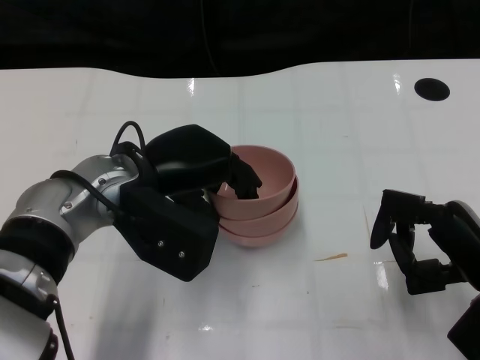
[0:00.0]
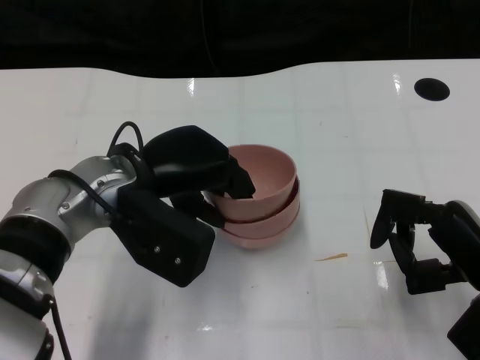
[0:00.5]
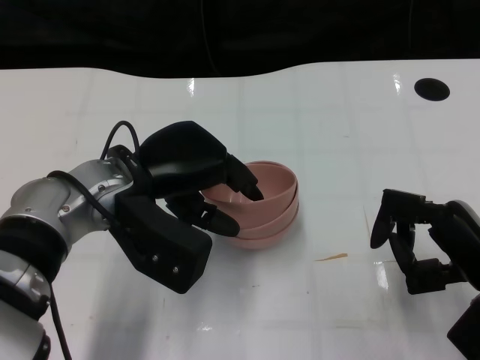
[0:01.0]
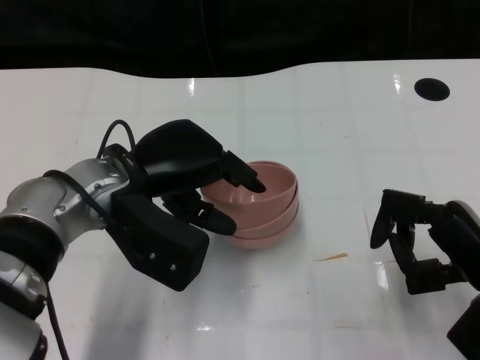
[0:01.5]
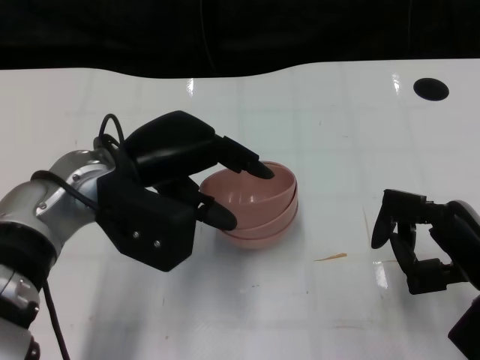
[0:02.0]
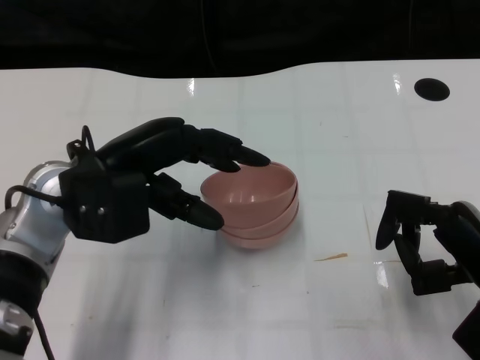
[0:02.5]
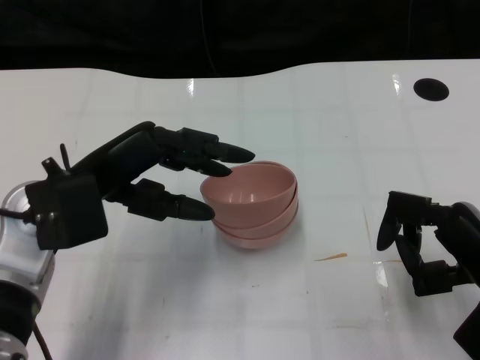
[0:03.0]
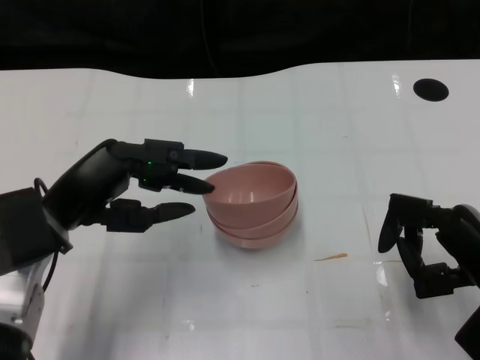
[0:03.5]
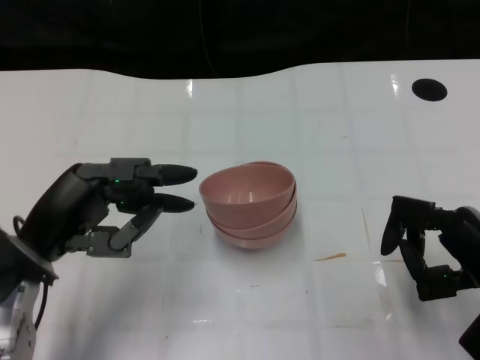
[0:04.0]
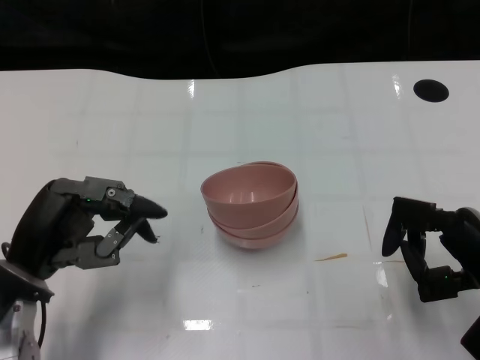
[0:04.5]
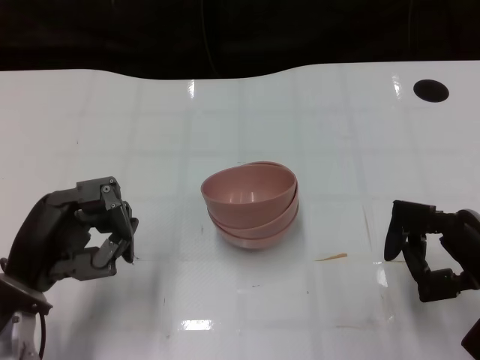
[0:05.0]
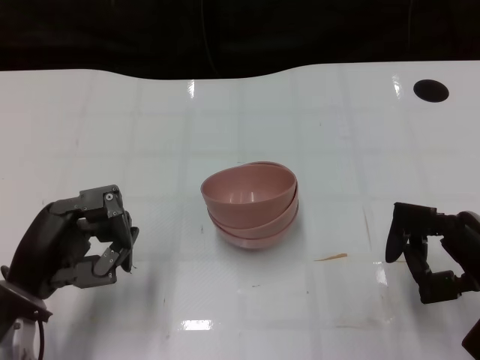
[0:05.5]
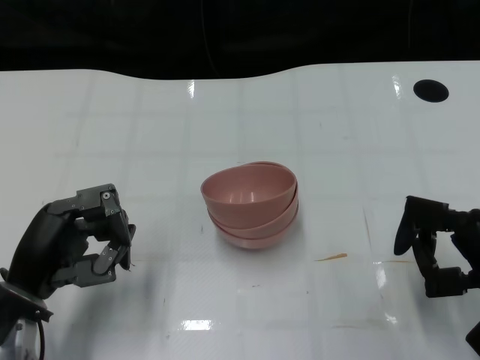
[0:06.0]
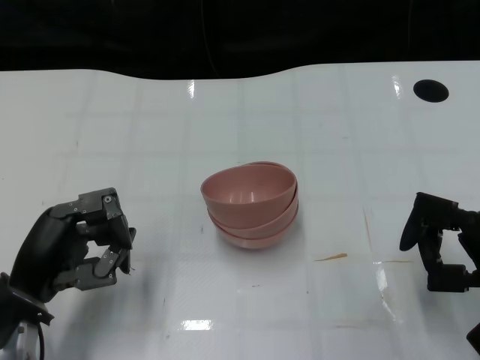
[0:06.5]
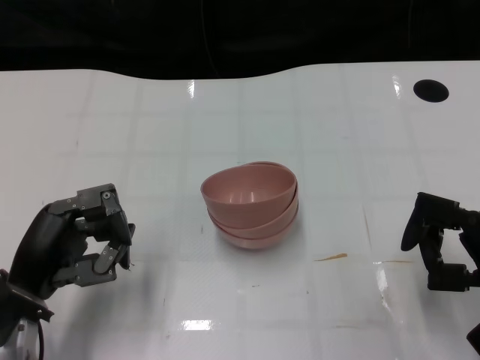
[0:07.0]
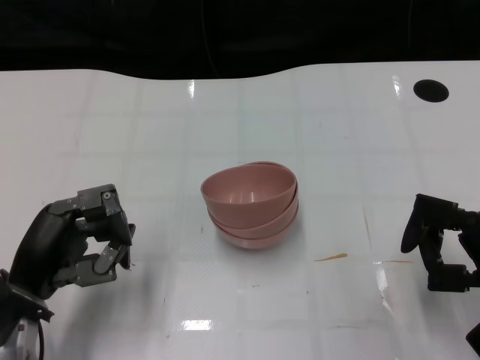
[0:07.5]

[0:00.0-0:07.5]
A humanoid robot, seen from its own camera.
Task of the whole recording: Pick up the bowl on one side of the table and place it on top of the middle bowl, then pick up the bowl on the other side of the table and place it on top of the middle bowls.
Step, 0:00.0 to 0:02.0: Place the bowl on the left onto the bowl in the middle with left gripper.
0:00.0 to 0:02.0: The hands move only a little.
0:02.0 to 0:04.0: The left hand goes some 10 cm to the left, backward and downward.
0:04.0 to 0:05.5: The left hand shifts by approximately 5 cm.
0:05.5 to 0:07.5: The hands make only small movements.
